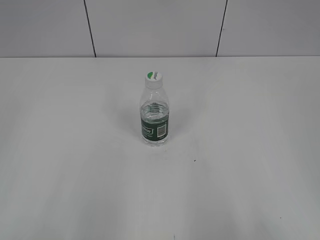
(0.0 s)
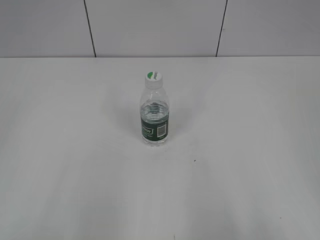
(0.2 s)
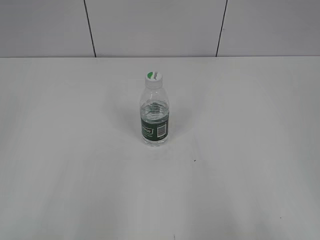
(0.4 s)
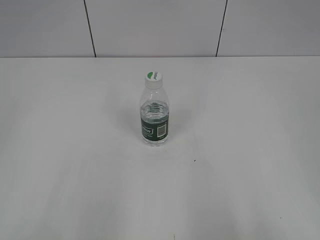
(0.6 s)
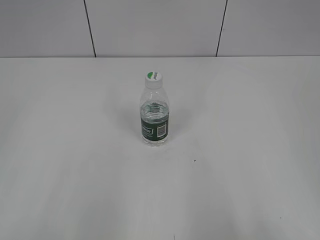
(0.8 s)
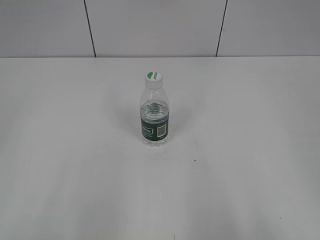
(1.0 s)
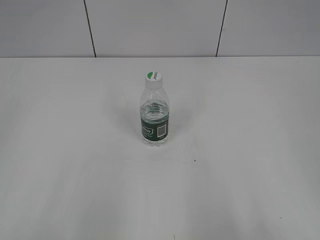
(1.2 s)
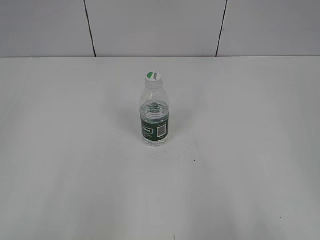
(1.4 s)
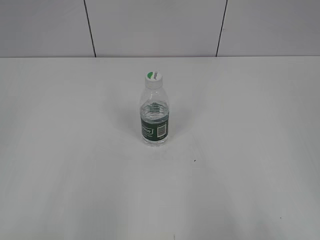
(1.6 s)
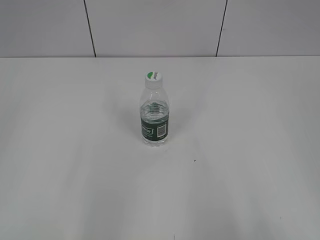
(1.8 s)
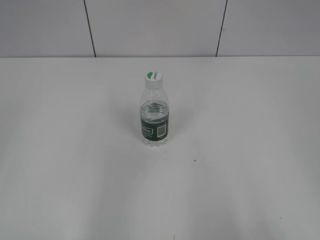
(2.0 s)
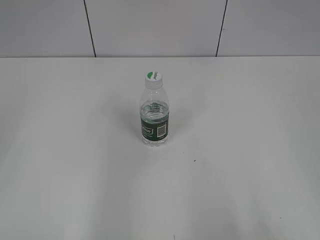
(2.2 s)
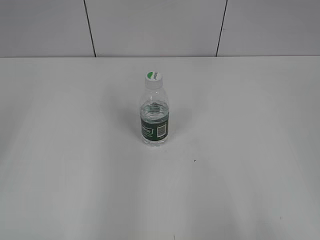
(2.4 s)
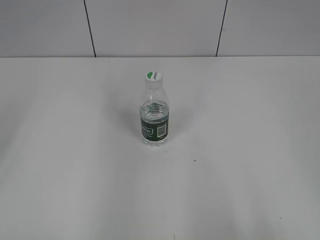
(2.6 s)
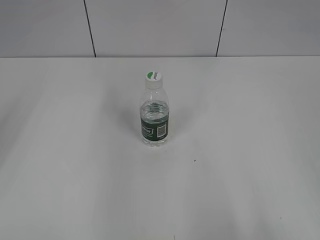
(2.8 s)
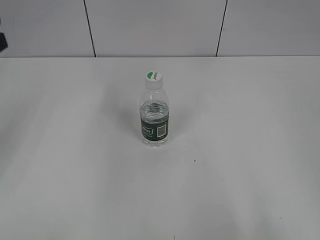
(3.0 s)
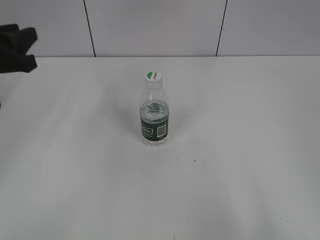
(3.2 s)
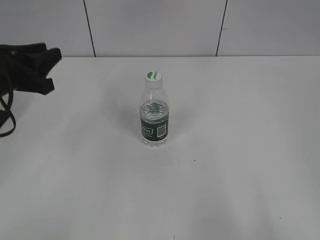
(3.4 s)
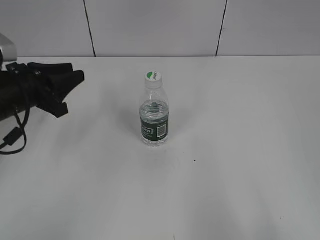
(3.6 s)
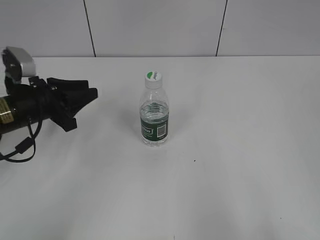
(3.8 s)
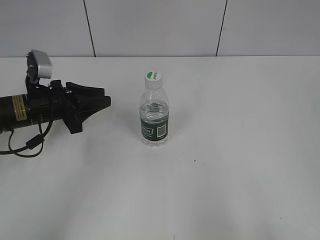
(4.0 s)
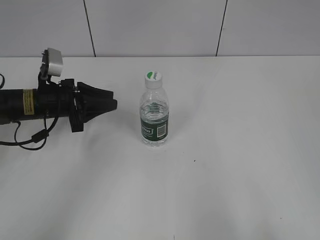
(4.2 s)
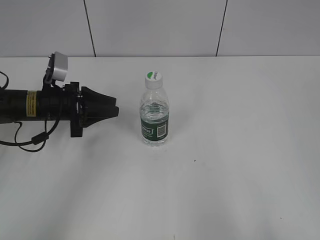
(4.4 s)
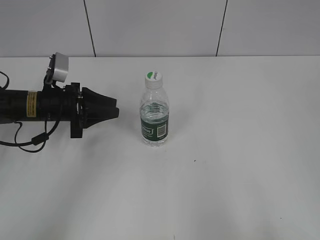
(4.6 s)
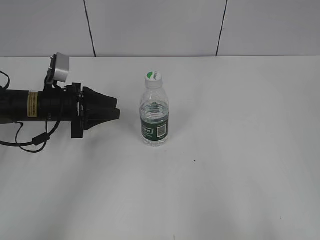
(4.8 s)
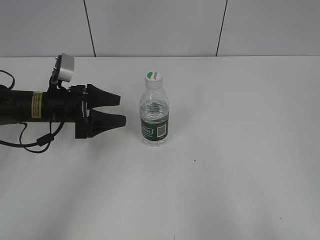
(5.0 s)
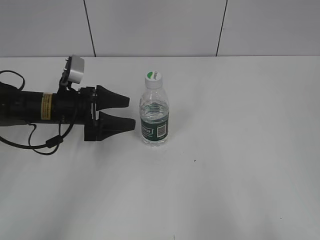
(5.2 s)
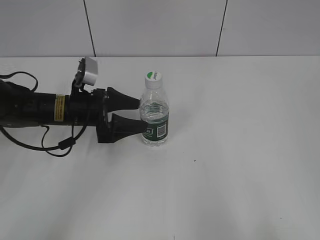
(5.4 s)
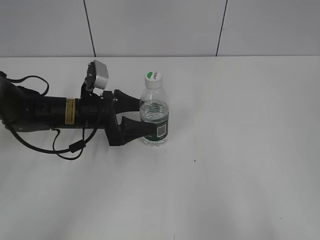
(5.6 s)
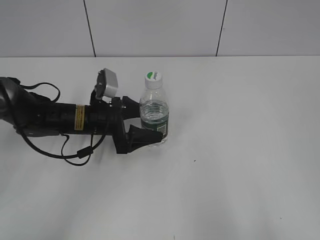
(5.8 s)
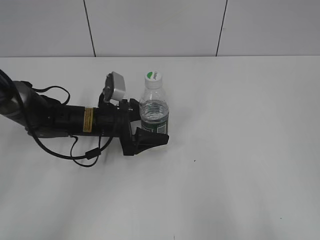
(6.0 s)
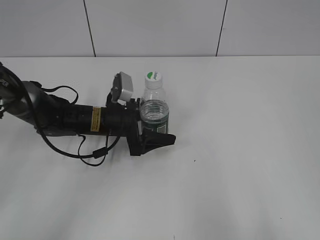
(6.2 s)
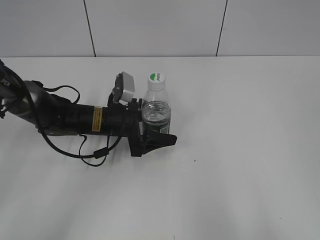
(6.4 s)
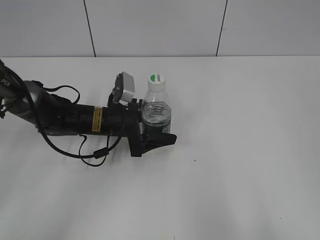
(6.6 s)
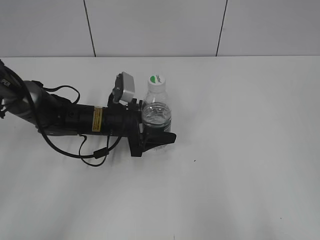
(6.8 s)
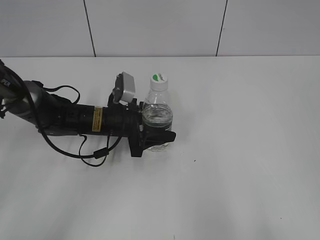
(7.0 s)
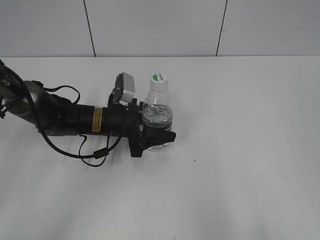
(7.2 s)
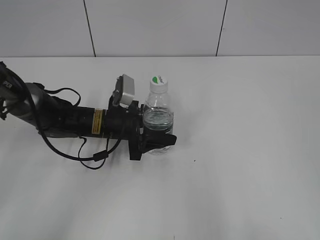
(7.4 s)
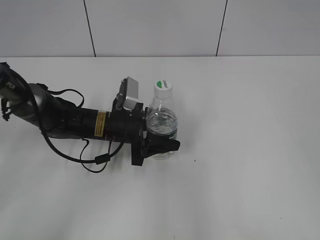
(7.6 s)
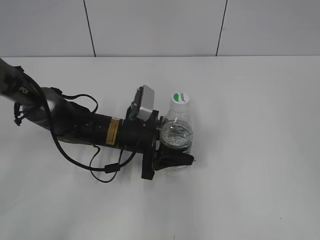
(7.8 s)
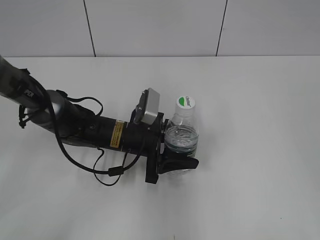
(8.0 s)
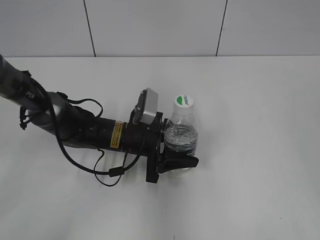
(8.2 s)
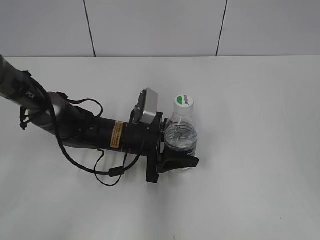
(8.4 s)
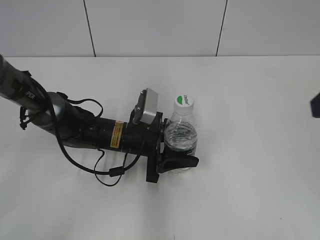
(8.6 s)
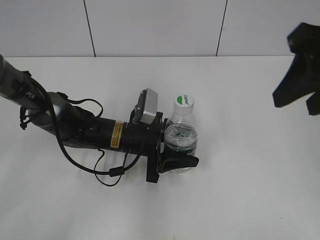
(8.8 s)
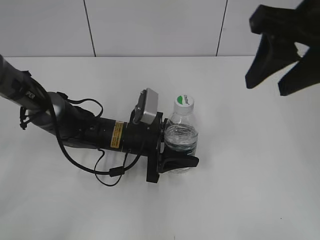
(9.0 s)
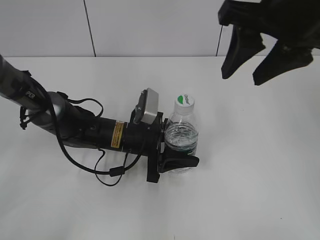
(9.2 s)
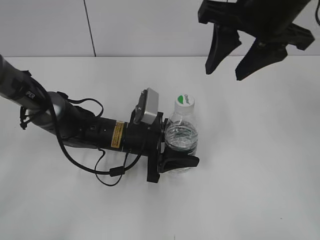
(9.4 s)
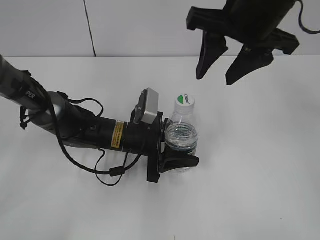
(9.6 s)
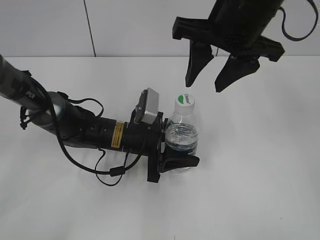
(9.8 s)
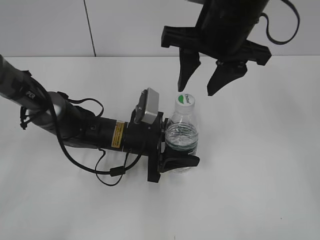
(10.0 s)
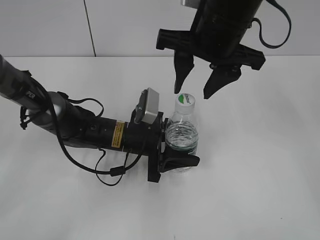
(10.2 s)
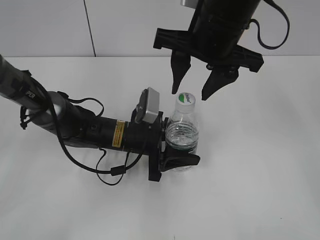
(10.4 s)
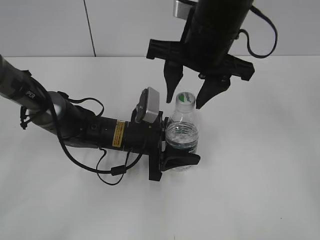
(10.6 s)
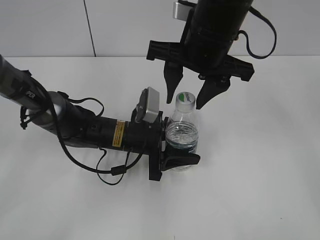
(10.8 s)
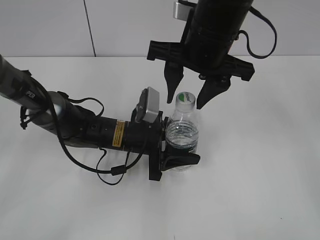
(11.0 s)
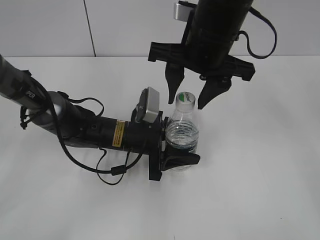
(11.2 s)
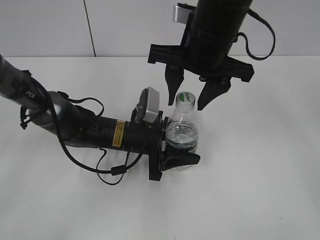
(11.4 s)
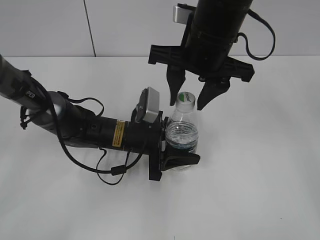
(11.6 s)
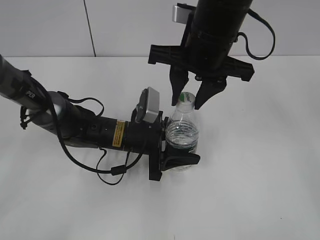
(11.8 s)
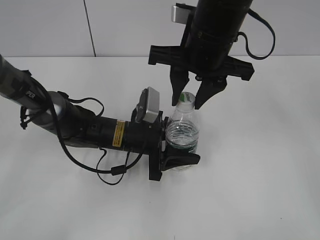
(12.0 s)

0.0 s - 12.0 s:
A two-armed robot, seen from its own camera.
Step, 0.0 s - 6.8 s: Grasp the bottle and move it to the center of the table with the left gripper.
Step, 7.0 s - 7.8 s: Lift the bottle and move it to the center of the table with the left gripper.
3.0 s - 4.4 s: The left gripper heads downward, forward and to the right, covering approximately 20 cm.
4.4 s - 6.0 s: The left gripper moves to the right, roughly 10 cm, and opens.
6.0 s - 7.6 s: The left gripper closes.
7.6 s - 9.0 s: The right gripper heads forward and to the left, covering roughly 20 cm.
9.0 s - 10.4 s: The right gripper travels to the left, forward and downward by roughly 15 cm.
10.4 s - 12.0 s: The right gripper closes up.

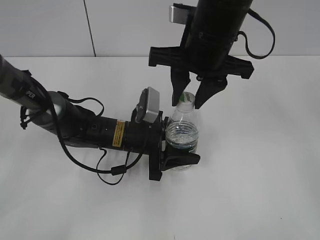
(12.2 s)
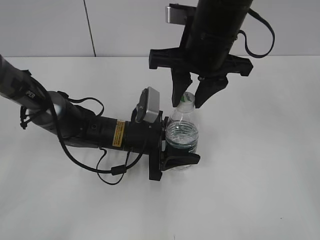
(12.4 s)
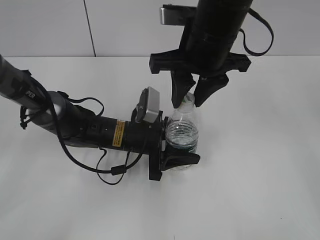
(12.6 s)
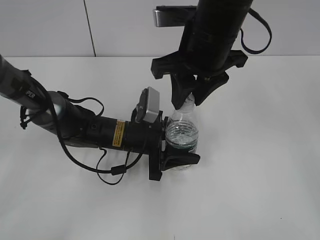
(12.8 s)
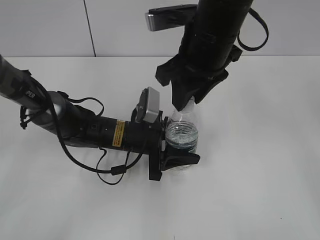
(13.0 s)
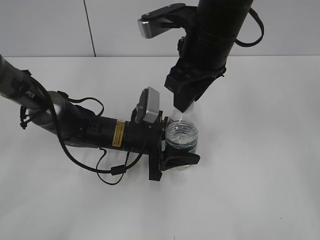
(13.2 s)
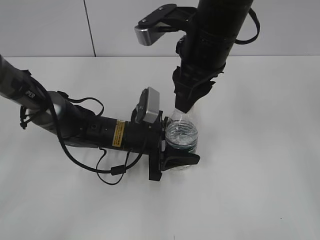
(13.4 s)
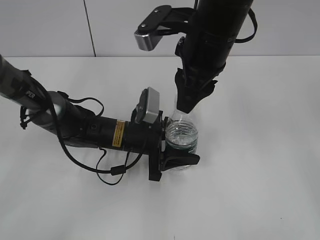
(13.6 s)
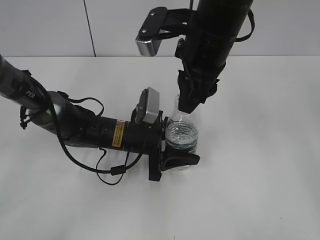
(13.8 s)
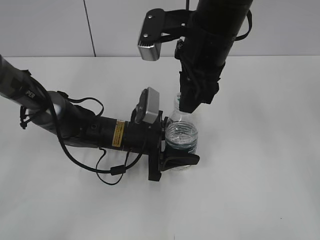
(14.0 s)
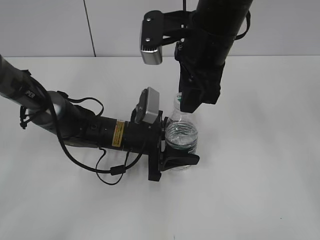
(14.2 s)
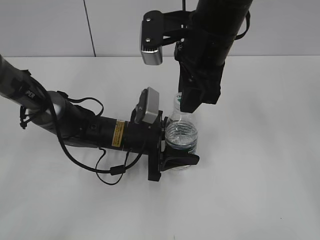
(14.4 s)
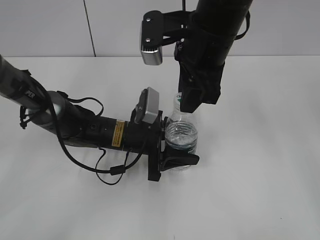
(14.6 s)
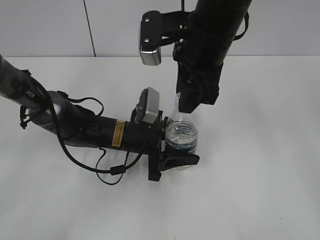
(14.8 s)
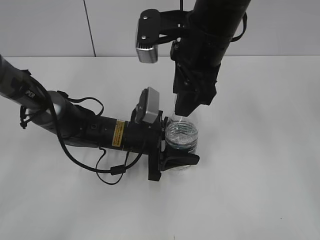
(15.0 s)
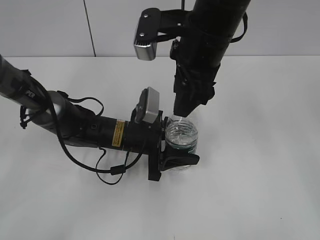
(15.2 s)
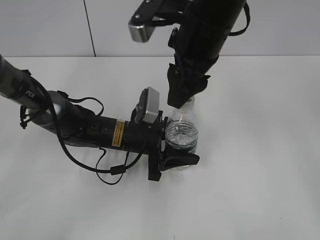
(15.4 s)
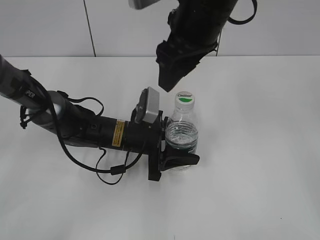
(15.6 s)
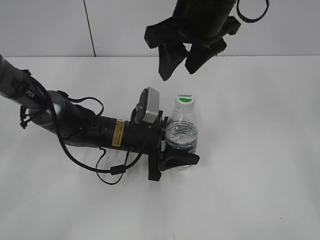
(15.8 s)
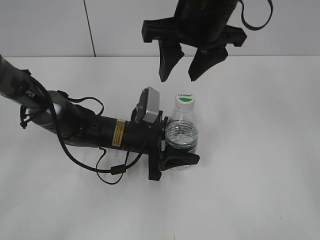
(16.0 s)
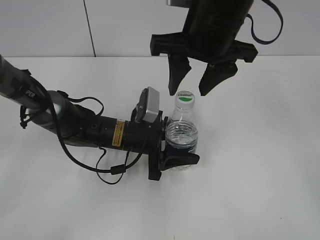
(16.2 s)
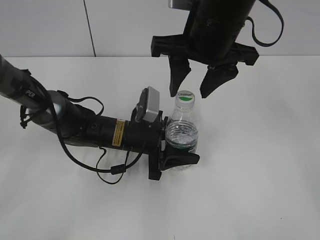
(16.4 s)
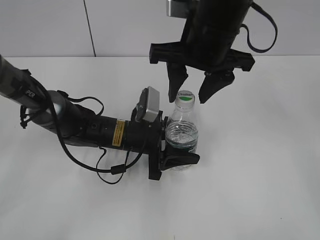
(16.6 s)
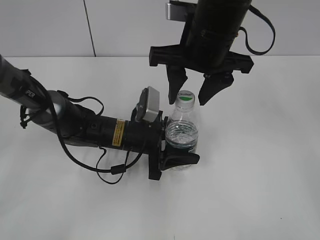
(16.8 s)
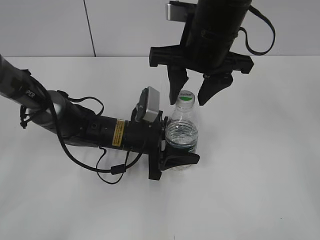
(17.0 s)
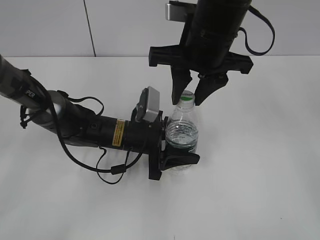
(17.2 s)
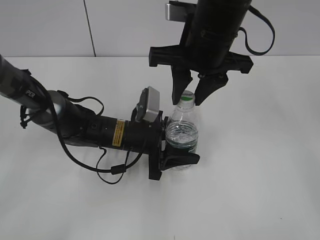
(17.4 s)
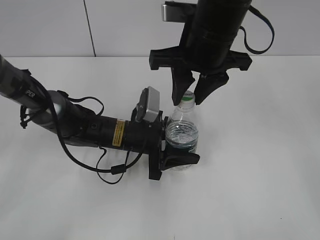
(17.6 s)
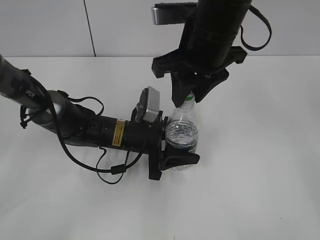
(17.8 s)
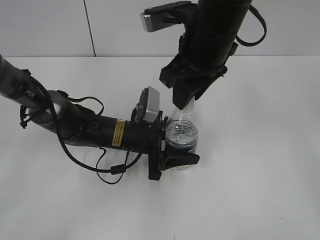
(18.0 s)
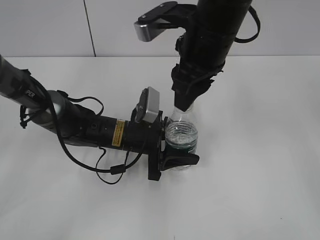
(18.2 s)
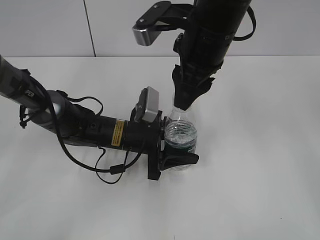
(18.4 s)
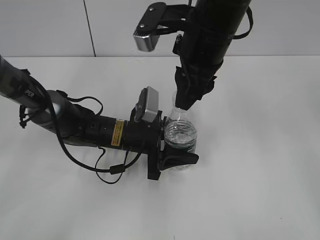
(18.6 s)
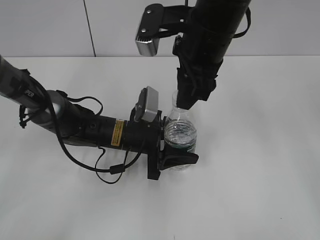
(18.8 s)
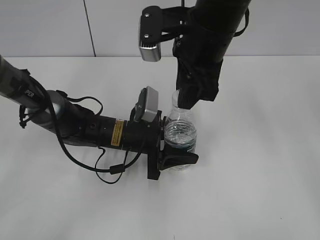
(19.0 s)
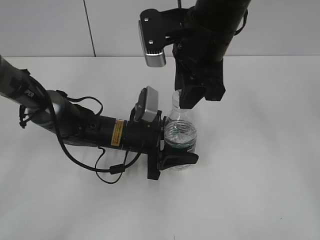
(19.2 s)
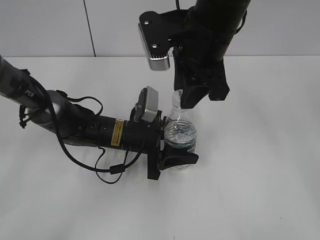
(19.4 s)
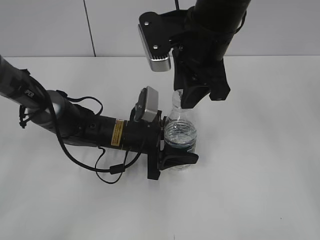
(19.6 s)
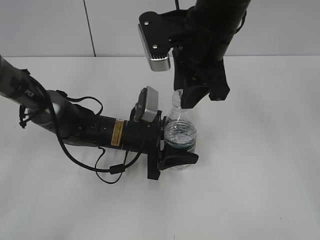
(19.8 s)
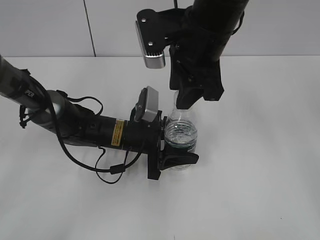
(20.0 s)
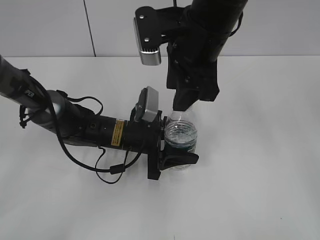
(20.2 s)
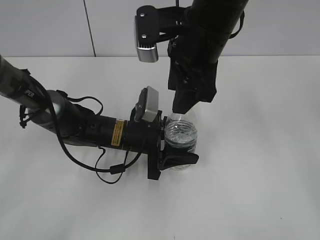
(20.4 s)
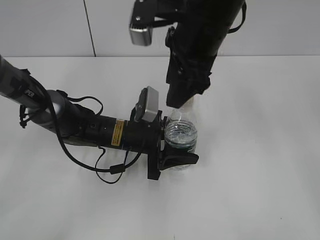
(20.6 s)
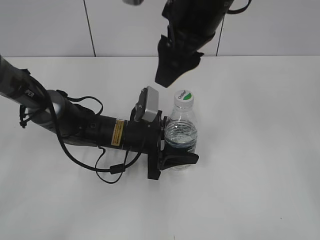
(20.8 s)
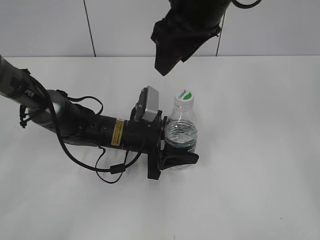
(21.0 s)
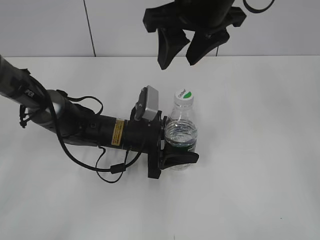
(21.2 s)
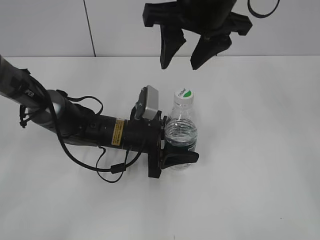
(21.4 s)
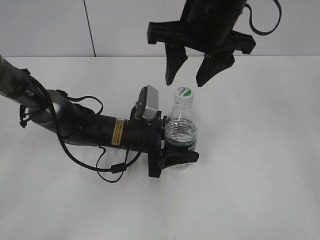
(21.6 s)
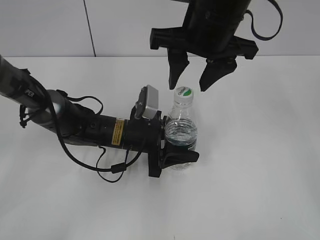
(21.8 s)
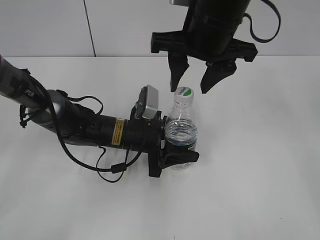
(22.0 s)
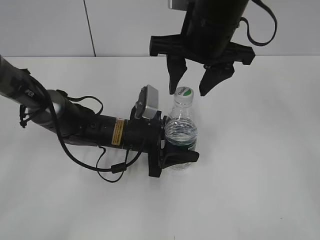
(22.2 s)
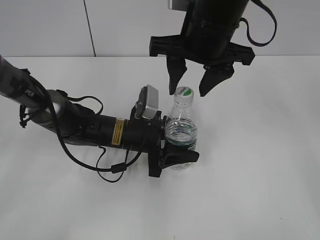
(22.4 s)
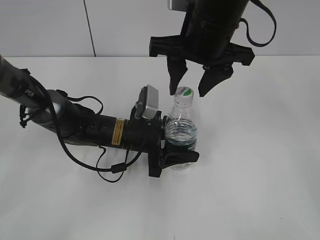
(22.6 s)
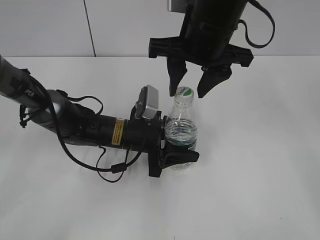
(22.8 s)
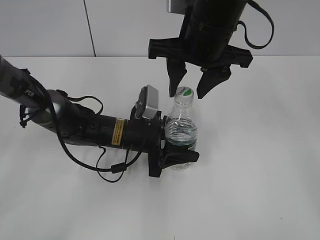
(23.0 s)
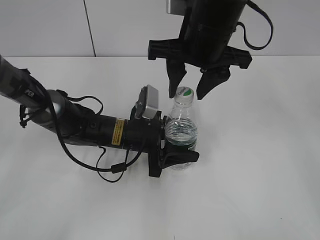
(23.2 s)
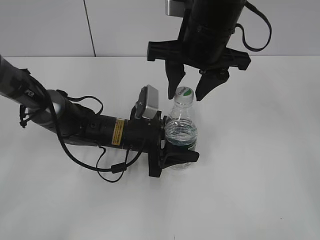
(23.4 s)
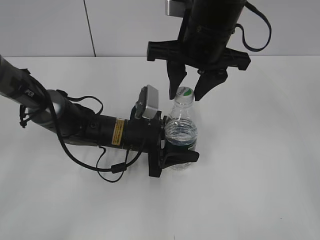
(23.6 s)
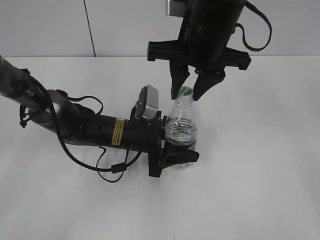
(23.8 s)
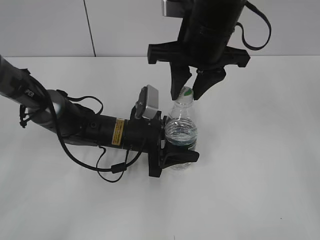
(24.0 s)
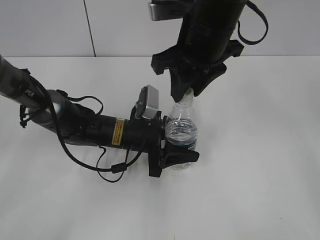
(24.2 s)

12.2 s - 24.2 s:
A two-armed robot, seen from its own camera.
13.8 s - 15.2 s: The right gripper opens up.
16.6 s - 18.2 s: The right gripper closes its fingers.
19.8 s - 21.2 s: The right gripper goes about 5 cm upward, and opens its fingers.
22.6 s - 24.2 s: The right gripper closes.
